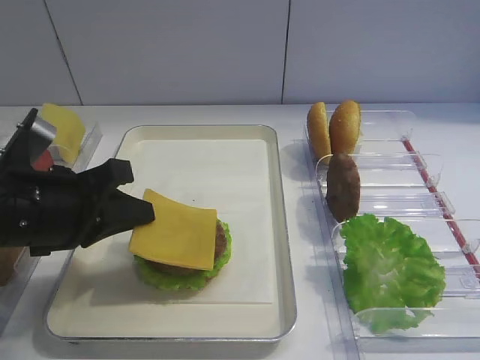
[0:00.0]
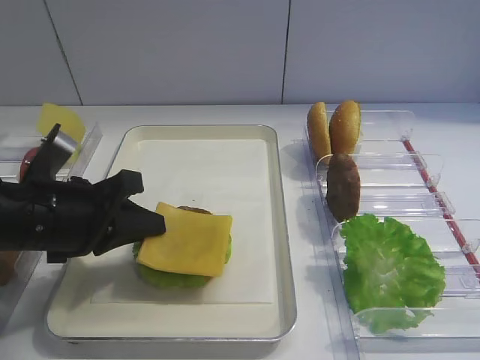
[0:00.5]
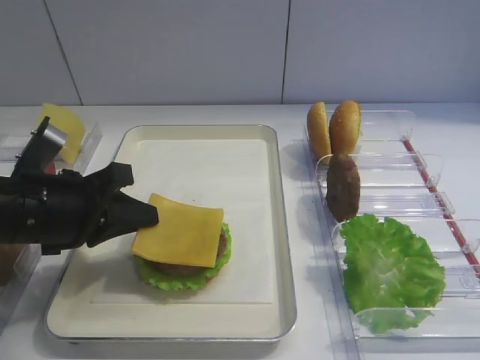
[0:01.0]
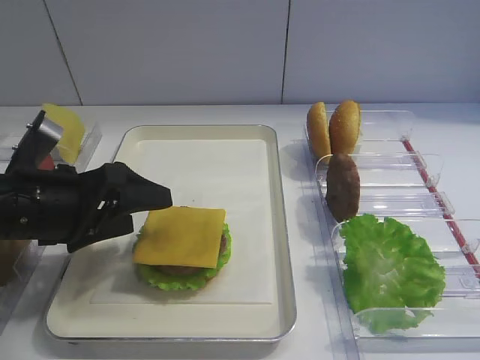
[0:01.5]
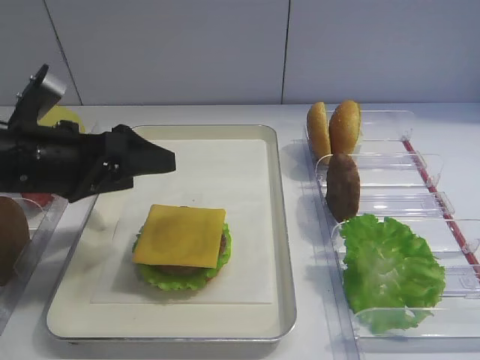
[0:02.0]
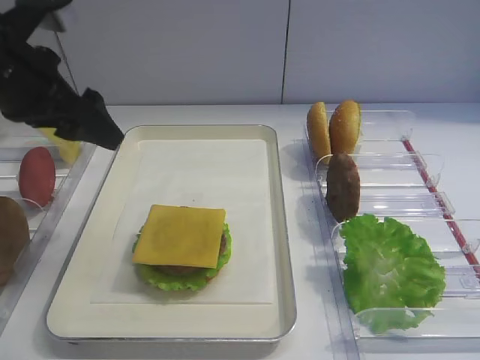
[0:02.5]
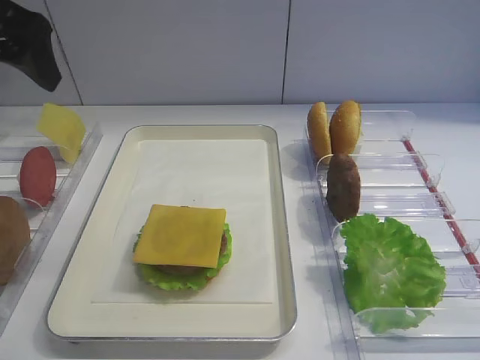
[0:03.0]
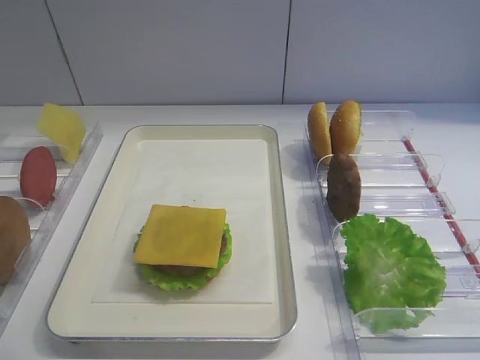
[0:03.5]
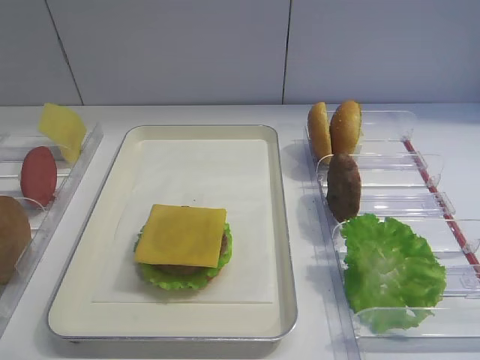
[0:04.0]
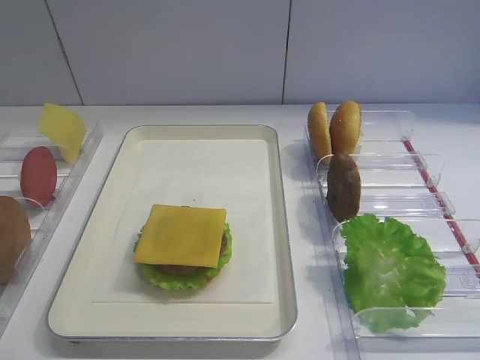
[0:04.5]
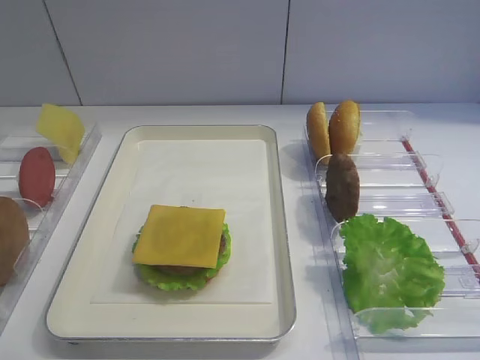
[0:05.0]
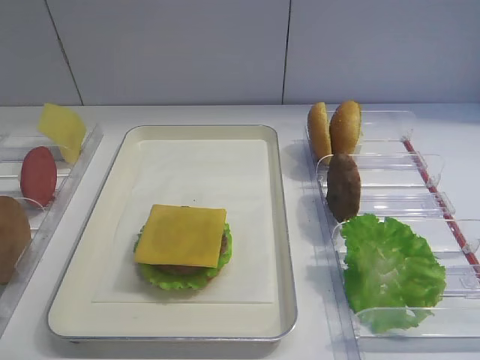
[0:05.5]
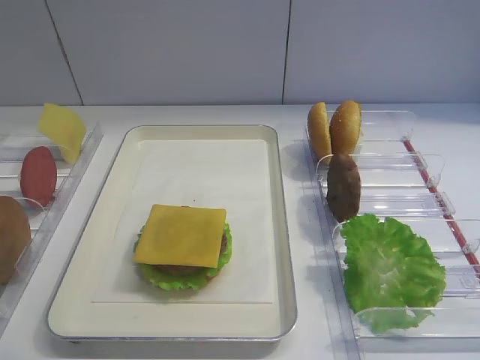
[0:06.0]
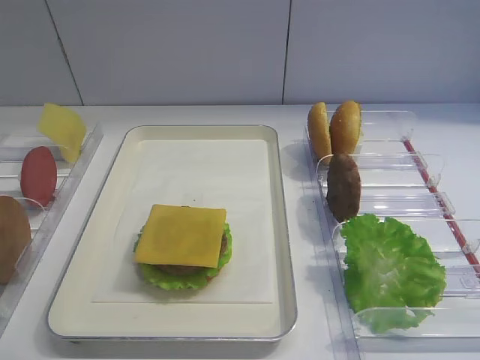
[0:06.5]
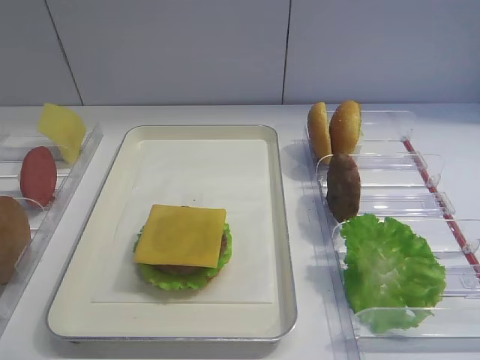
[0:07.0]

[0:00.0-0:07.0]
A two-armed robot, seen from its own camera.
Step, 0:00.0 to 0:02.0: Place the cheese slice on the cutlet with the left gripper.
0:00.0 to 0:02.0: The left gripper opens.
0:02.0 to 0:03.5: The left gripper moves upward, some 25 cm.
